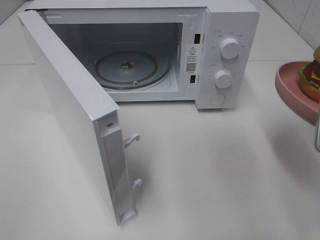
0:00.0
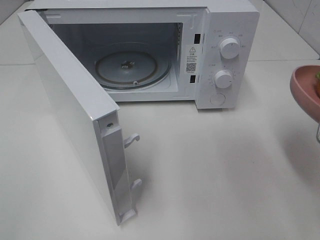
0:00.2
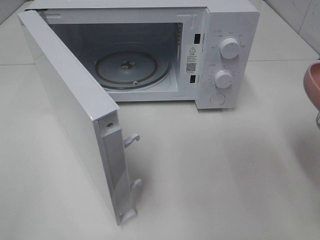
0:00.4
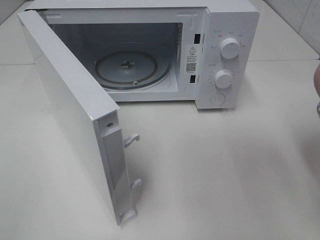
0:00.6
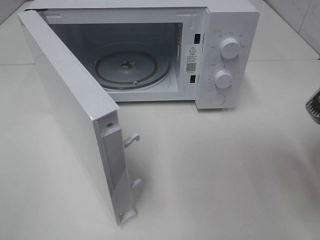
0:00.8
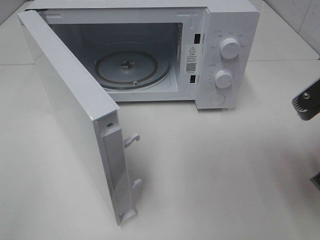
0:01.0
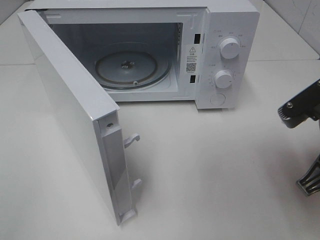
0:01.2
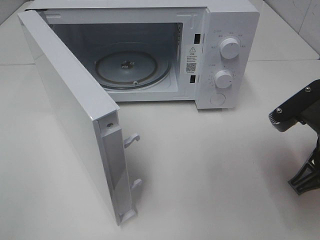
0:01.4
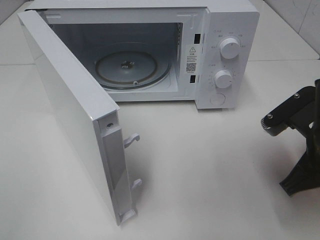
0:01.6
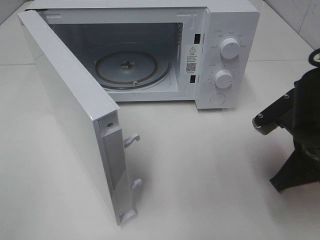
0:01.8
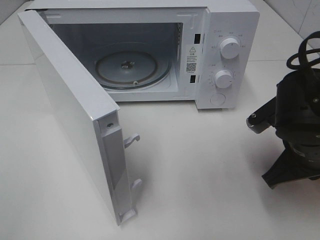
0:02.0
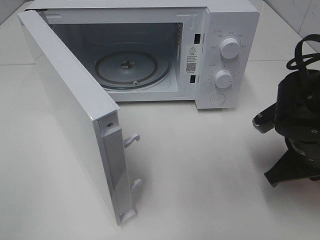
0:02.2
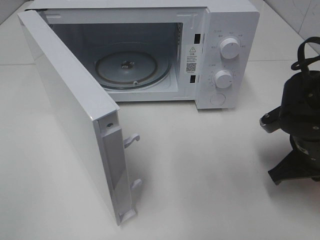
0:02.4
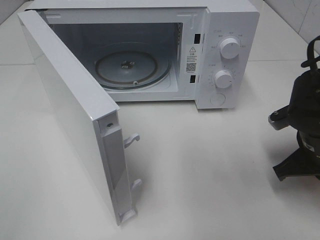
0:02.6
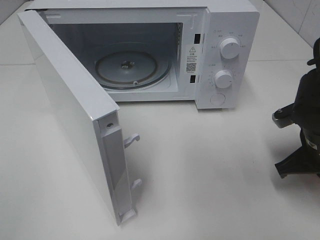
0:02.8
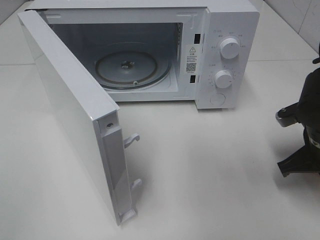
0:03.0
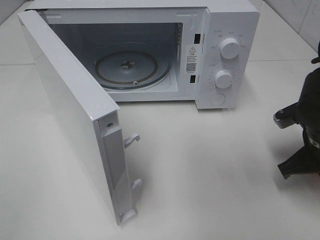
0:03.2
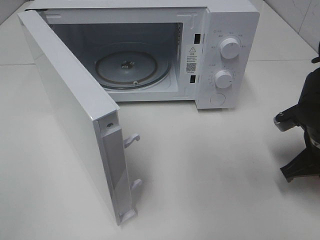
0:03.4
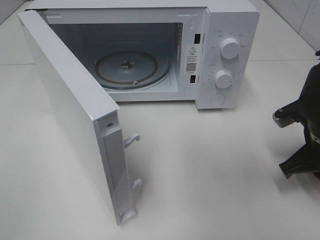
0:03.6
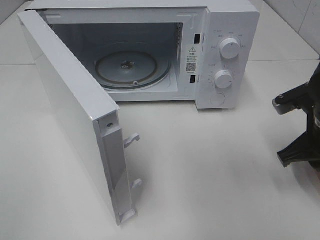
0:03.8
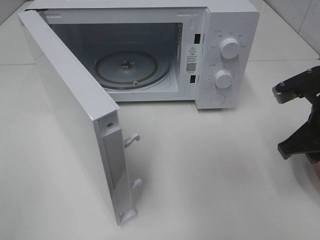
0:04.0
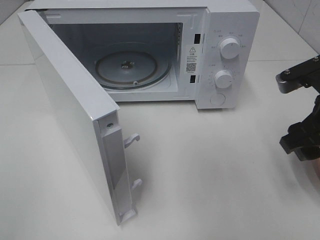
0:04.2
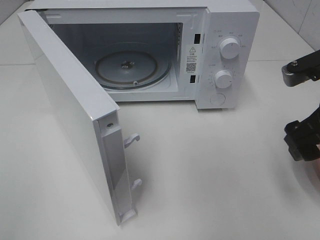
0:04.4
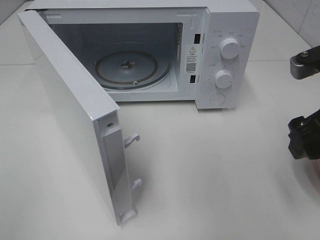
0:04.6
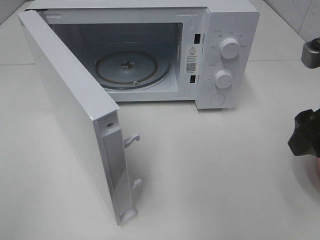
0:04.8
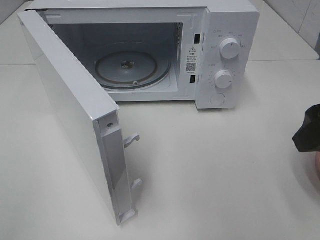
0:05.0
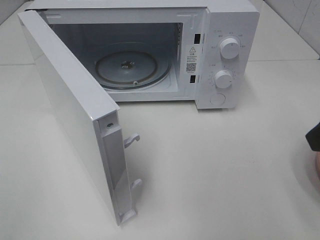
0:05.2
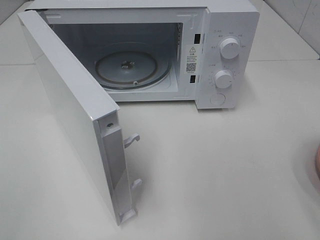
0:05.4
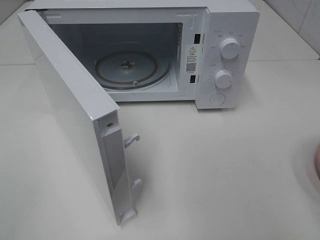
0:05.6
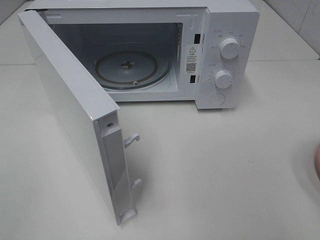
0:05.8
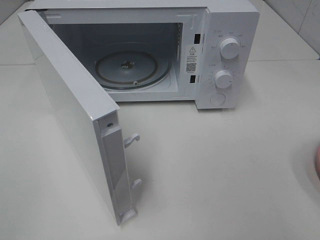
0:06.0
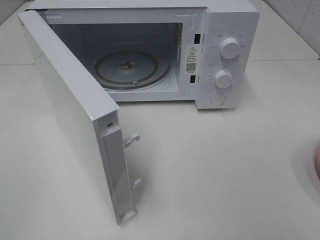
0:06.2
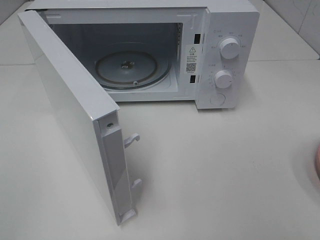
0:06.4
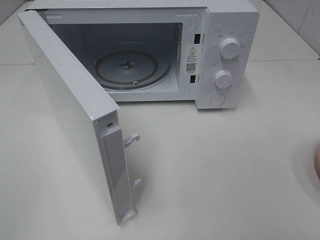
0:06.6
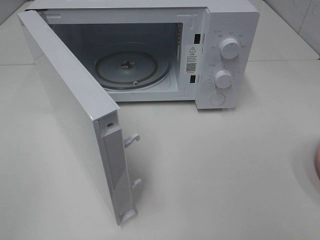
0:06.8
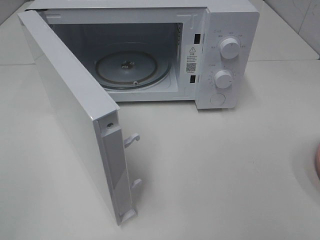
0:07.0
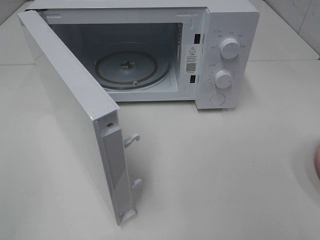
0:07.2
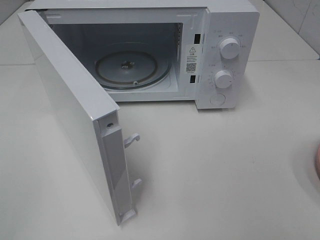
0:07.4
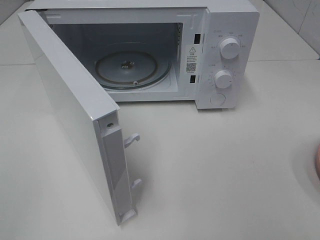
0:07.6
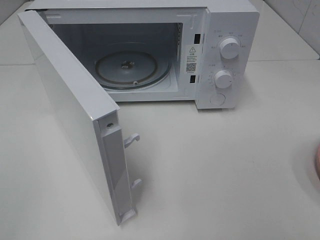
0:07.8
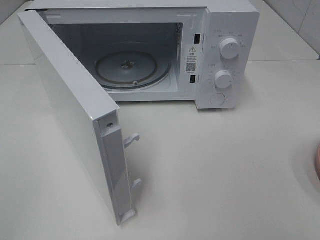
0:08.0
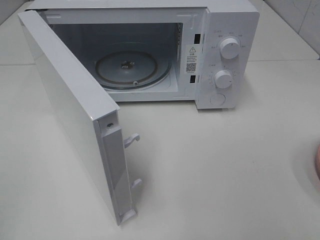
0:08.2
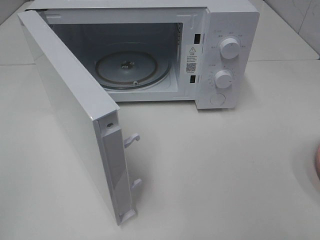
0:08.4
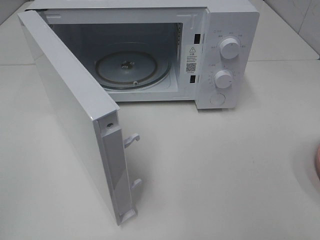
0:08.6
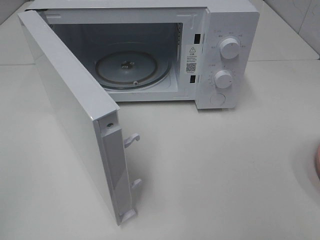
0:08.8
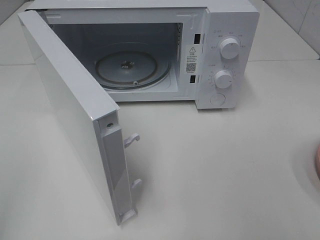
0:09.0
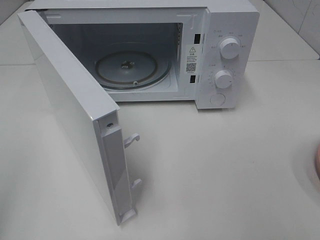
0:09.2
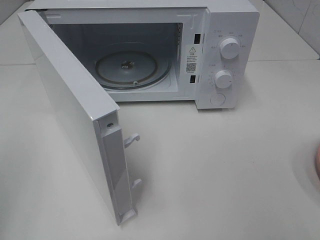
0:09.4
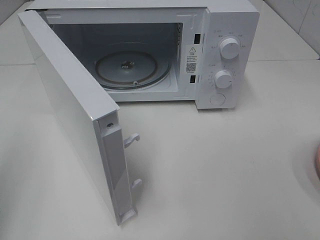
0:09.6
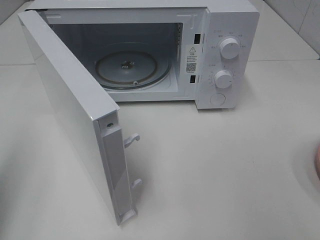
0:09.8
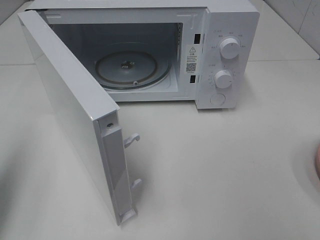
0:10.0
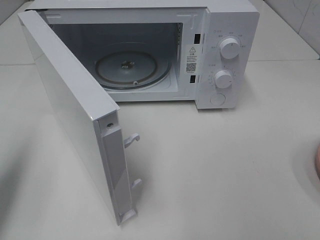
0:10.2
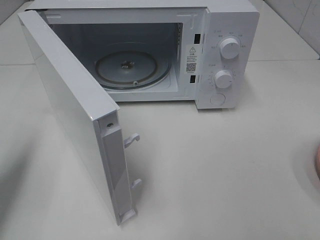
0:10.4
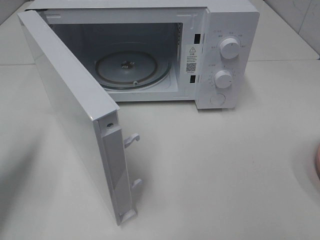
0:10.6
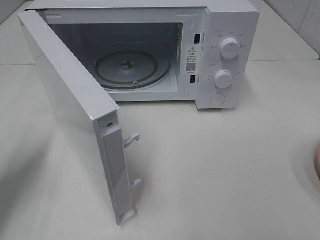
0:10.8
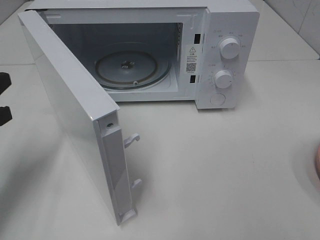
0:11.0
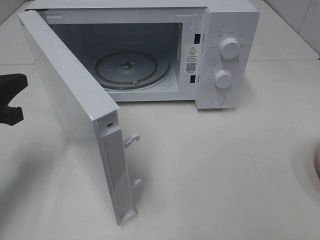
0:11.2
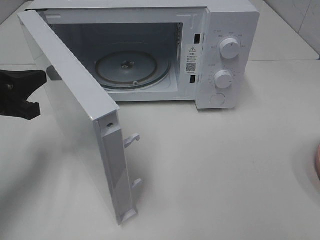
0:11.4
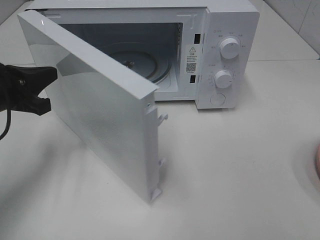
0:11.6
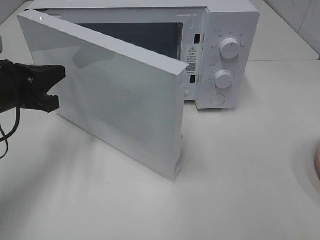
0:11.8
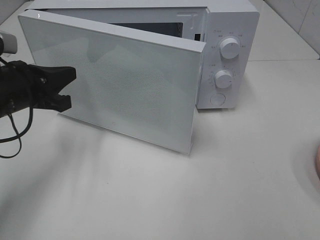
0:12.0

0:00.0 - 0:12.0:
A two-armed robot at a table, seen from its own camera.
Task of the whole recording: Heat the burger.
Step, 0:00.0 - 0:03.4: Right hand: place the plate on the table.
0:00.0 - 0:01.6: The right gripper is displaced downward by approximately 10 cm.
0:01.6 - 0:03.0: The right gripper is displaced forward by roughly 5 cm.
0:03.0 - 0:04.4: The right gripper heads upward, covering roughly 10 cm, and opens up.
0:04.4 - 0:06.0: The right gripper is displaced backward by roughly 15 cm.
0:09.0 - 0:10.4: The left gripper shifts approximately 20 cm forward and downward, and closes its fingers.
0:10.4 - 0:12.0: The left gripper travels forward, to the right and downward by some 15 cm.

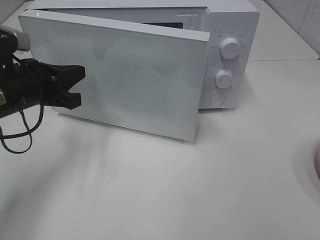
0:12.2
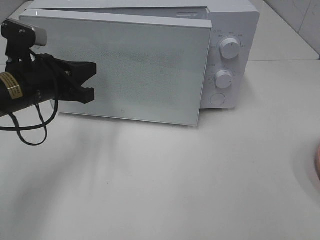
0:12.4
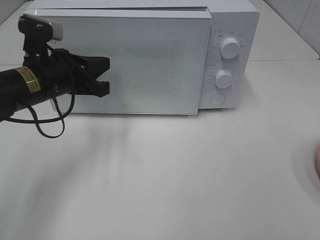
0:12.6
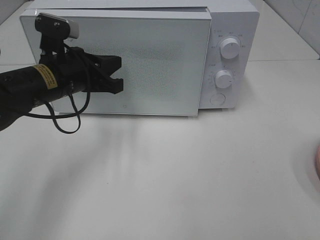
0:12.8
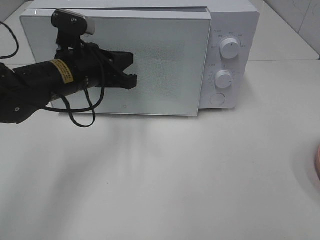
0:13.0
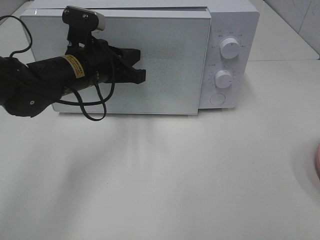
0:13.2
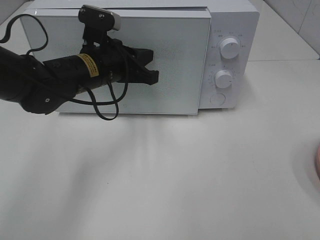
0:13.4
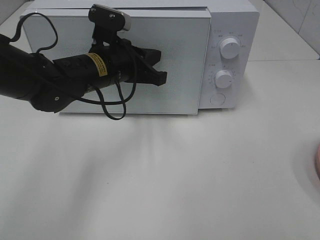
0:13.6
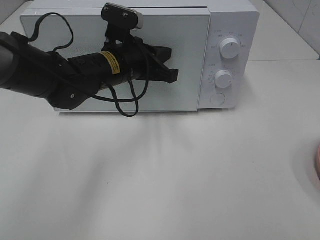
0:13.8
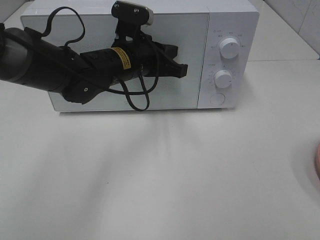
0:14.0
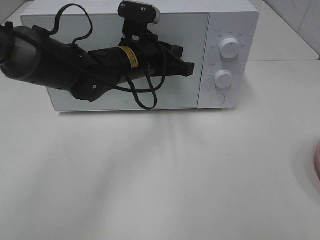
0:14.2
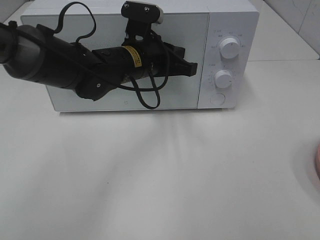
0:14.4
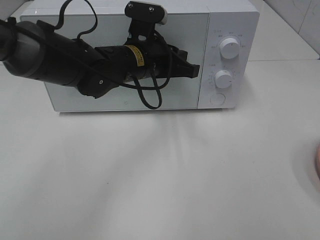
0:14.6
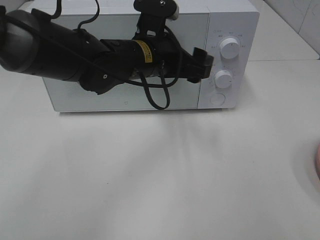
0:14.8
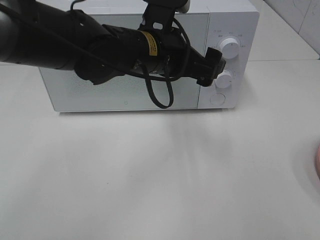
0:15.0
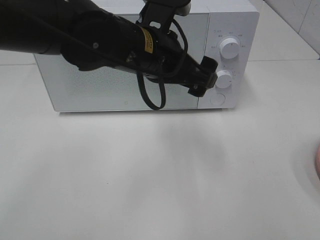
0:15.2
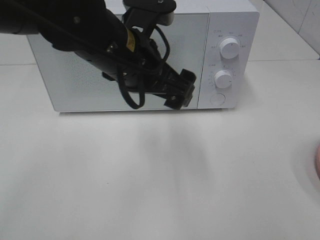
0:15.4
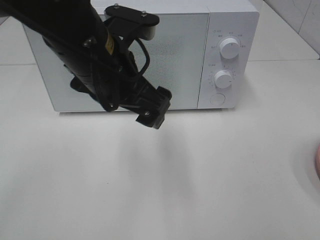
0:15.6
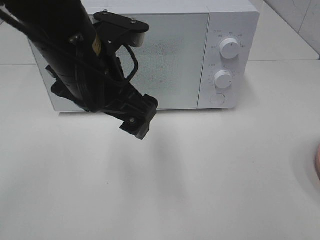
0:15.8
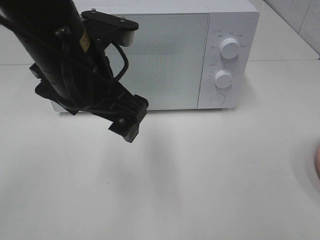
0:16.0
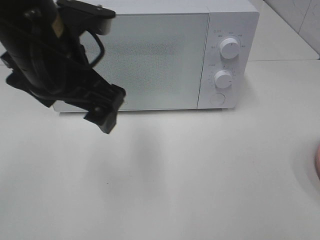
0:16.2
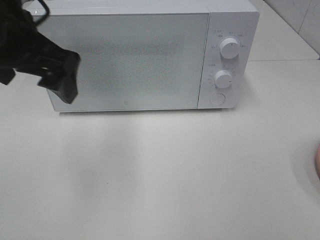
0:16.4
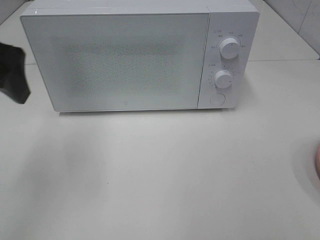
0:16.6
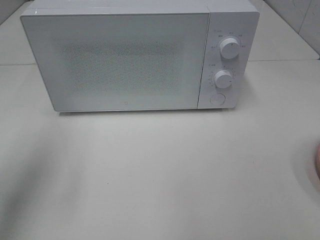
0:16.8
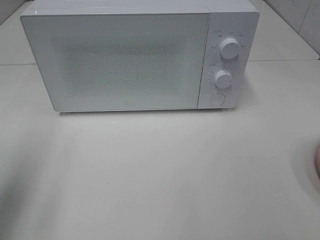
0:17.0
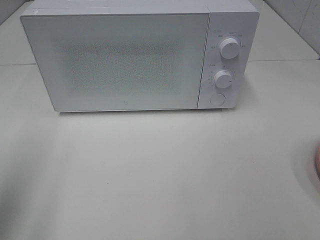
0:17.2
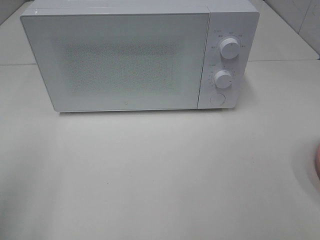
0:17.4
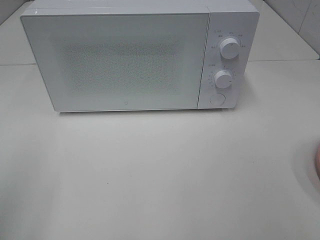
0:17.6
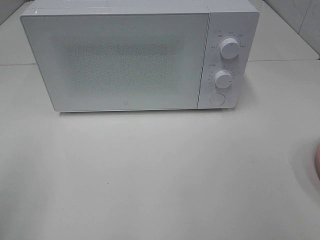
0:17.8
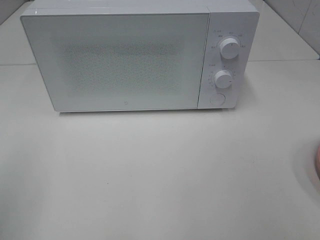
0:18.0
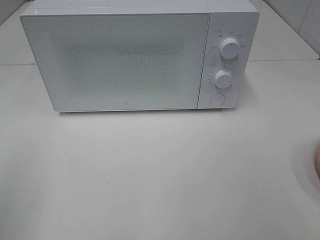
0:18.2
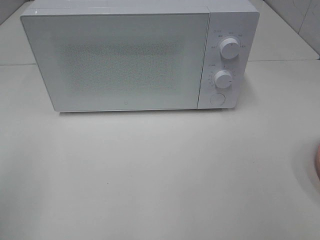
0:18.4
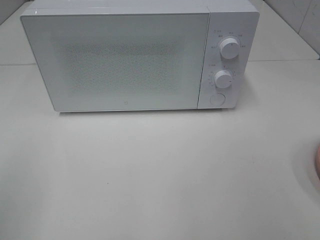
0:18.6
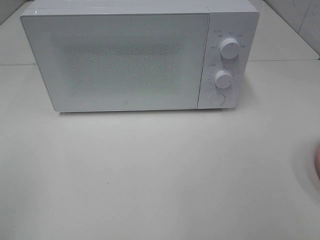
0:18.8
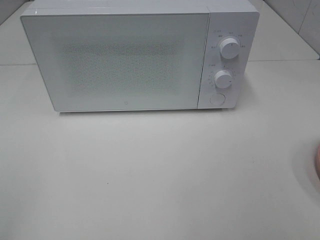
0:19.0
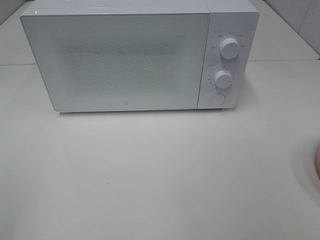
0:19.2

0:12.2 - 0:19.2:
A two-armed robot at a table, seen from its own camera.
Task of the whole recording: Heat the burger.
Step, 0:12.2 - 0:14.2: Left hand: close the microwave door.
0:12.2 - 0:13.6: The left gripper travels to the right and forward by approximately 15 cm.
0:13.6 - 0:15.0: The left gripper heads to the right, covering approximately 5 cm, and opens.
0:15.0 - 0:16.4: The left gripper travels to the left and upward by roughly 20 cm.
0:16.4 - 0:17.8: The left gripper travels backward and to the left by about 25 cm.

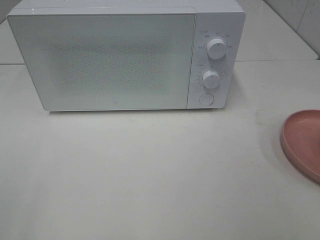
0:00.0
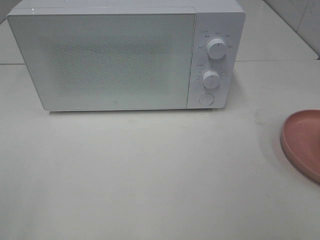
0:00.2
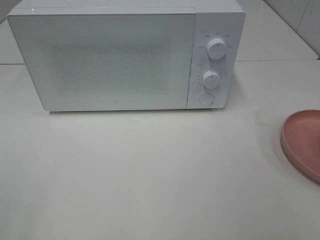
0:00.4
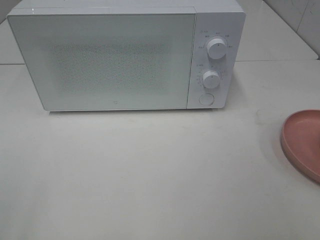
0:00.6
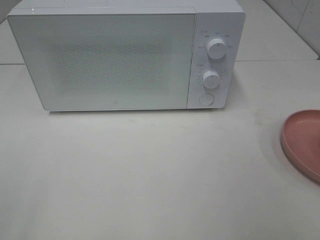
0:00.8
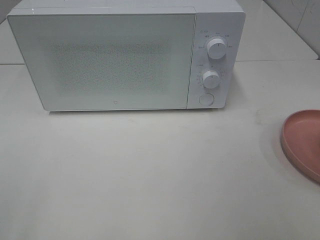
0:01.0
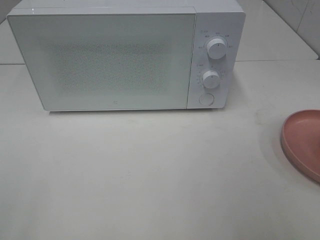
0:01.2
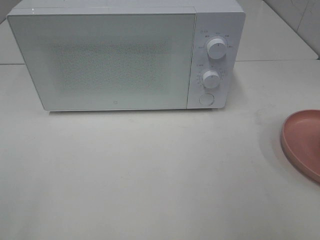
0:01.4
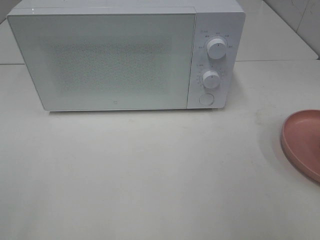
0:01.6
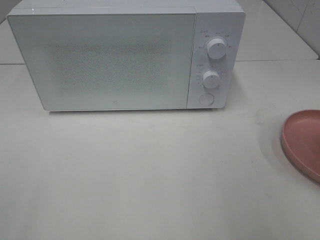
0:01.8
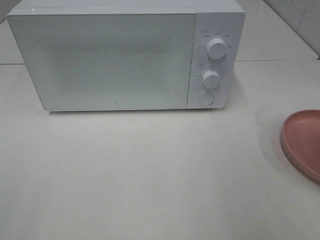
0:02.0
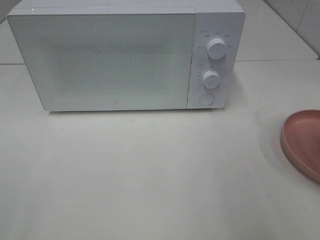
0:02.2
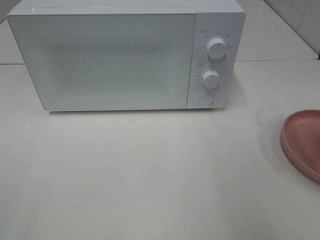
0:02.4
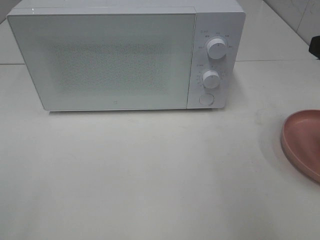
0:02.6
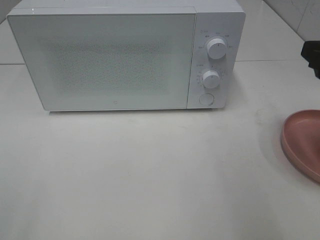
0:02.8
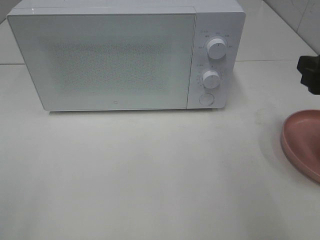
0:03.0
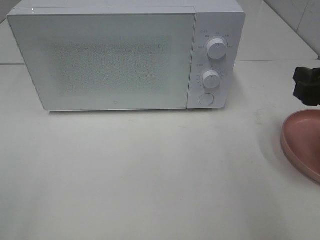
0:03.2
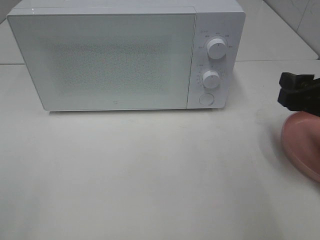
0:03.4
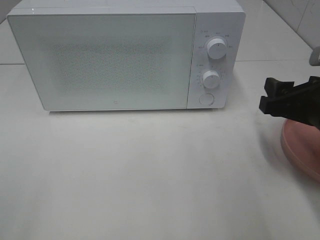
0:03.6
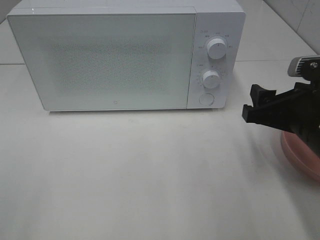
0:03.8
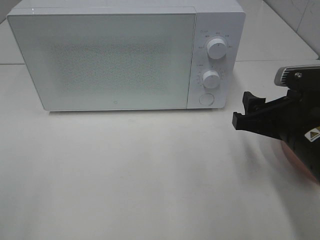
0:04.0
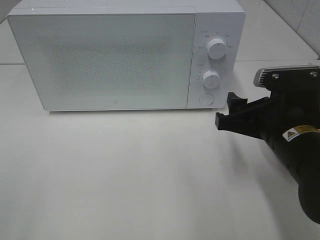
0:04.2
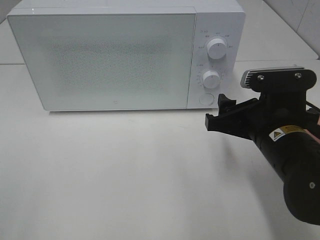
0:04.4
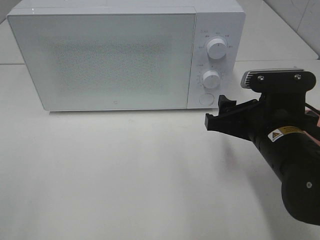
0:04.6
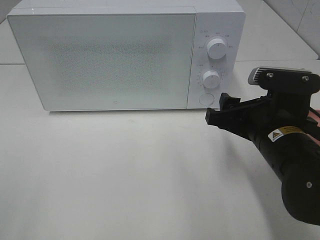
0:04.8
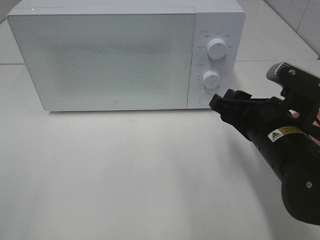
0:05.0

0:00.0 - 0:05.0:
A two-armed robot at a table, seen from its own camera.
Task of the whole recording: Heat the burger.
0:01.6 - 0:03.4: The right gripper is displaced forward and downward by about 15 cm.
0:03.4 - 0:05.0: The right gripper travels to the left by about 10 cm.
